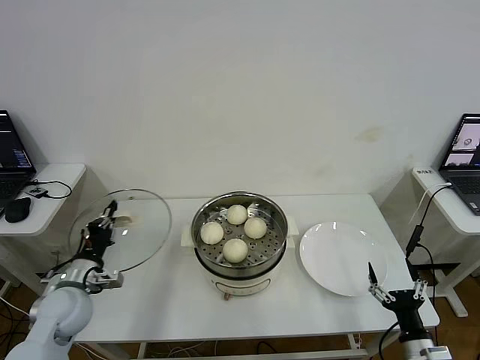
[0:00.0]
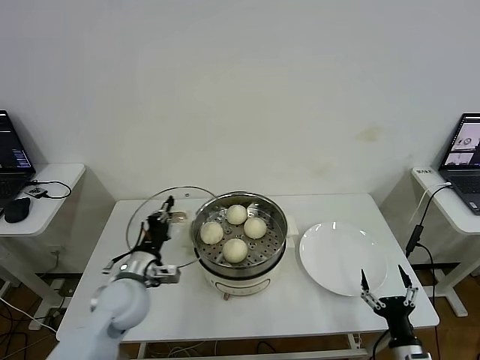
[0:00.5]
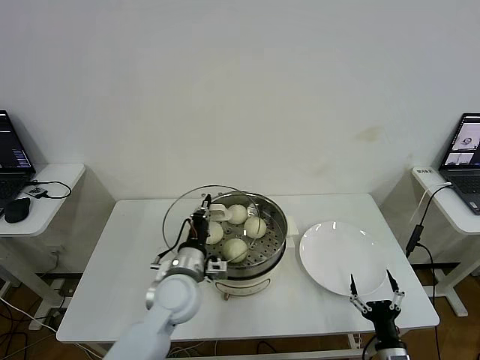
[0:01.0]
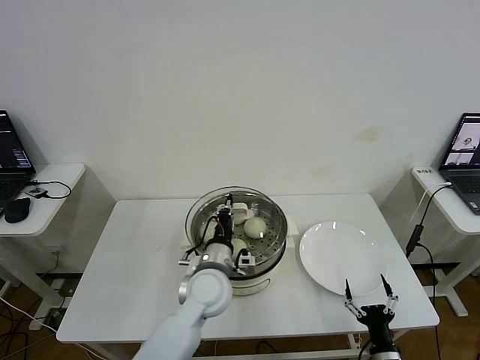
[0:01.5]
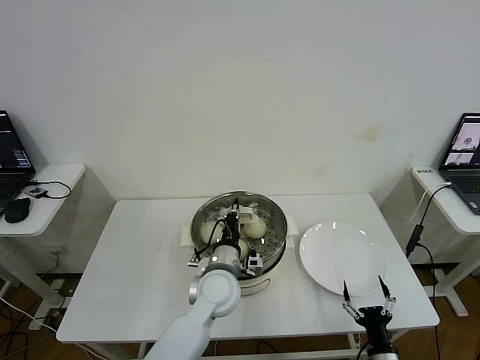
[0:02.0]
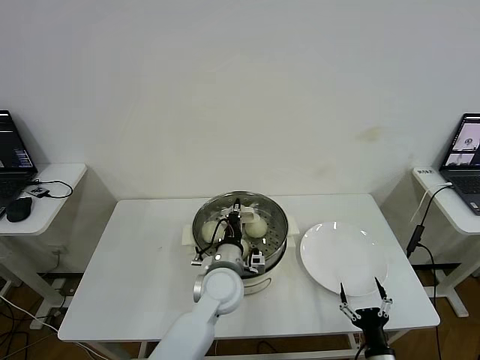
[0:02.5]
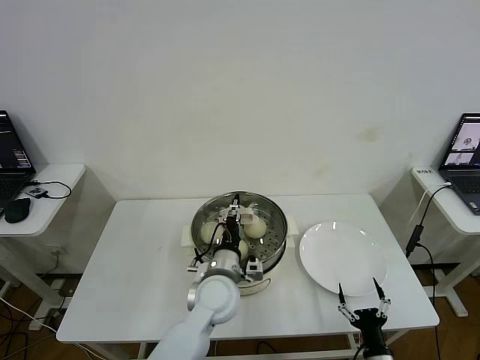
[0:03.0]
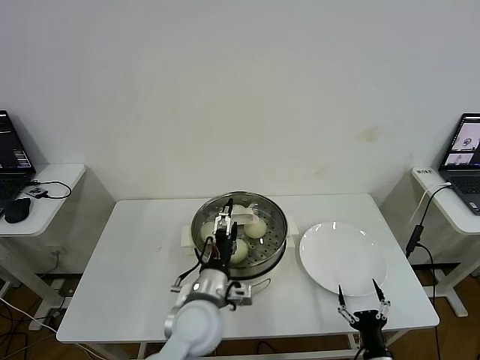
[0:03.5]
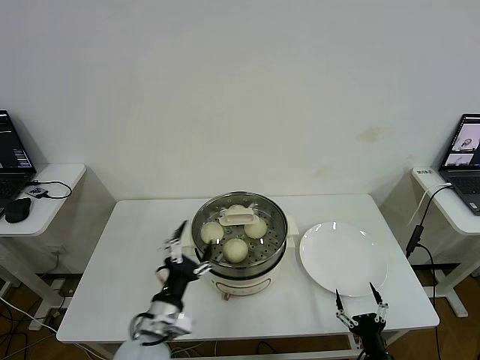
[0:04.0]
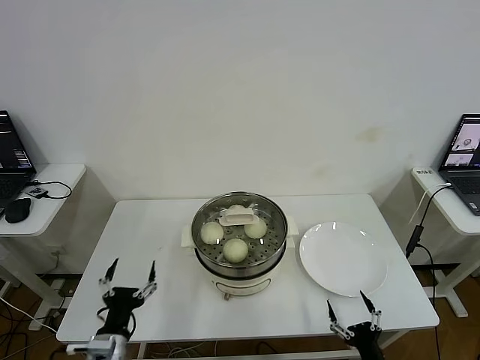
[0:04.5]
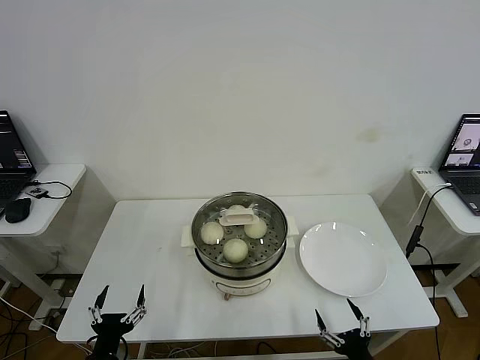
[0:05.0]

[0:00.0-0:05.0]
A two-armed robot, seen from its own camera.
Step, 0.0 to 2.5 s: Place the pot lid on the steamer with left gripper.
0.0 to 2.5 s: The right gripper shifts some 10 cm downward and to the left. The left gripper goes about 35 cm to the right.
2.5 to 5.0 s: The right gripper ends up approximately 5 cm from where it was. Meanwhile the left gripper heads to the left and backward, covering roughly 35 cm, and opens up.

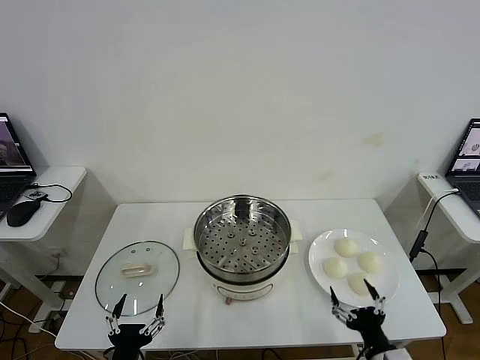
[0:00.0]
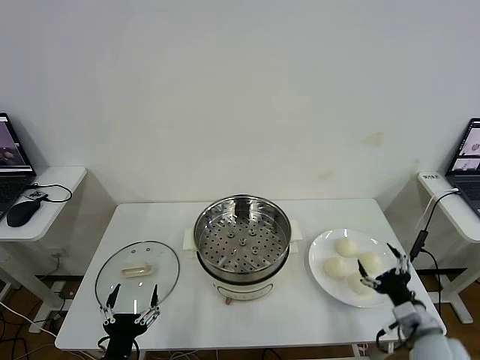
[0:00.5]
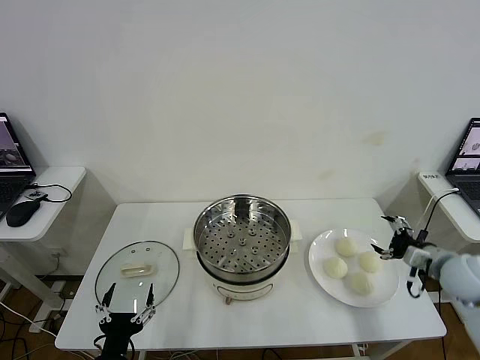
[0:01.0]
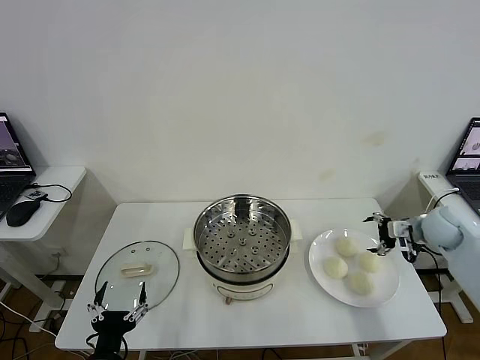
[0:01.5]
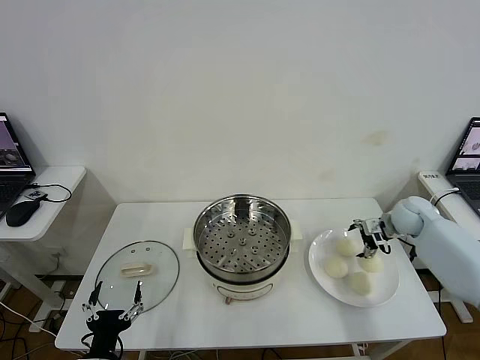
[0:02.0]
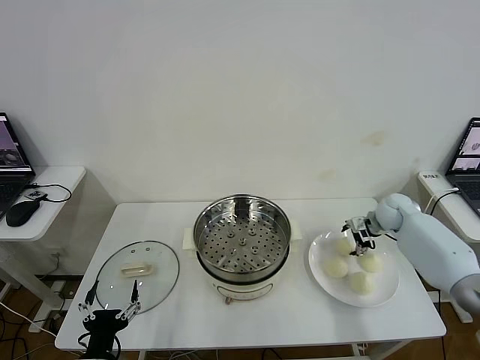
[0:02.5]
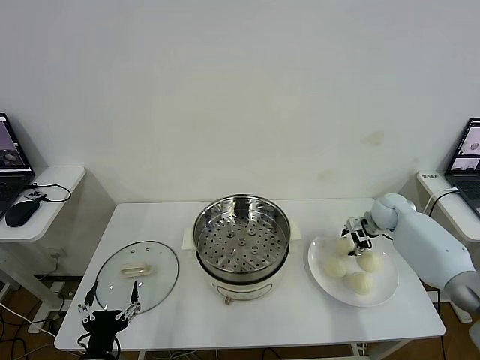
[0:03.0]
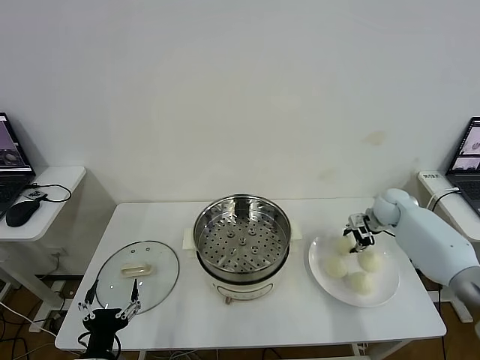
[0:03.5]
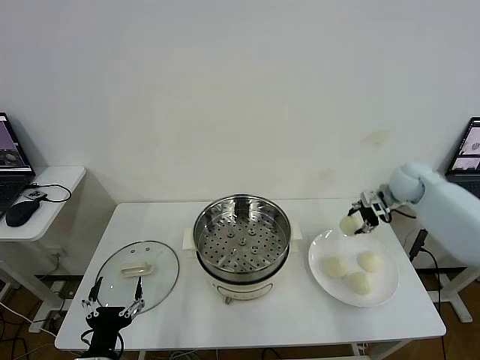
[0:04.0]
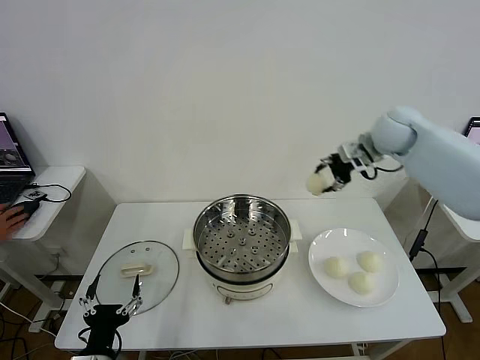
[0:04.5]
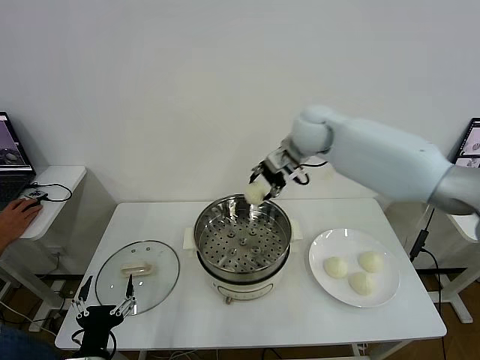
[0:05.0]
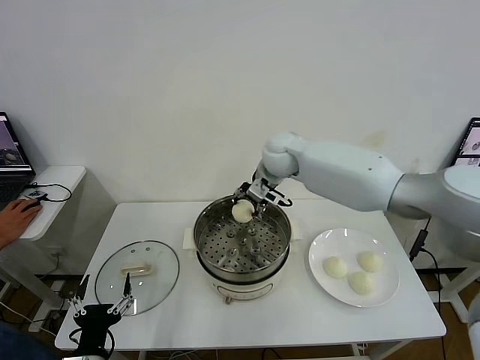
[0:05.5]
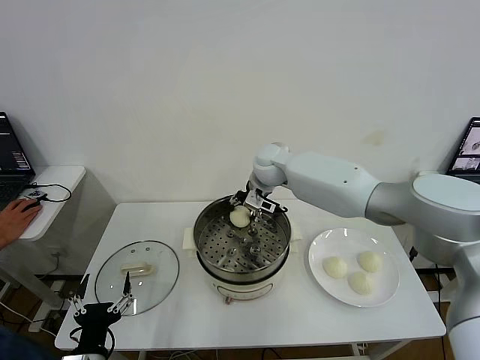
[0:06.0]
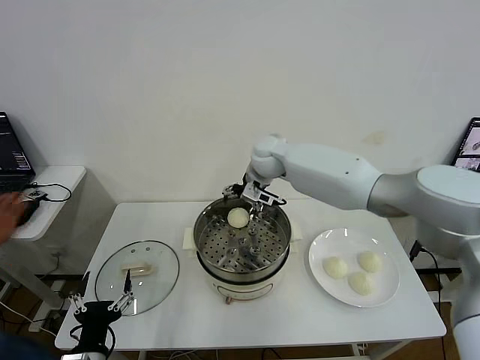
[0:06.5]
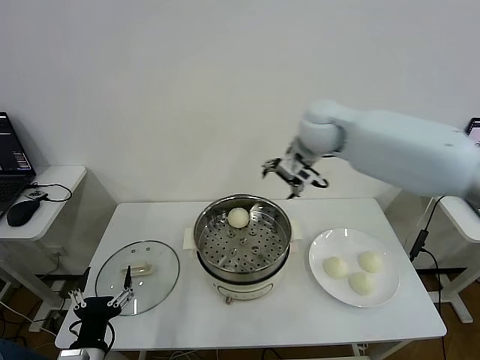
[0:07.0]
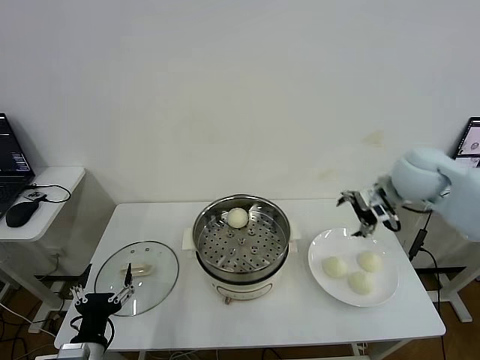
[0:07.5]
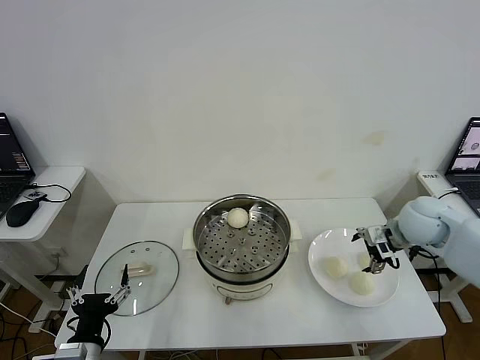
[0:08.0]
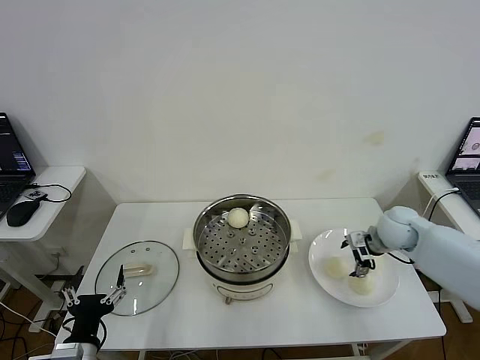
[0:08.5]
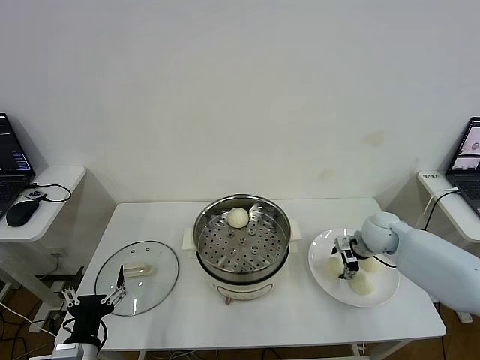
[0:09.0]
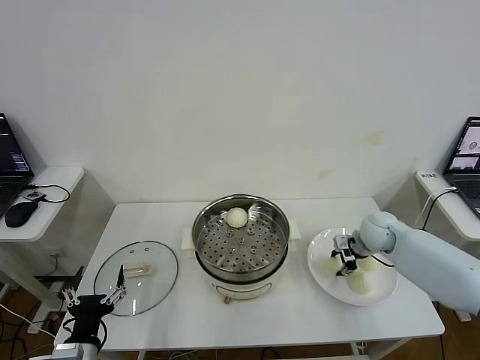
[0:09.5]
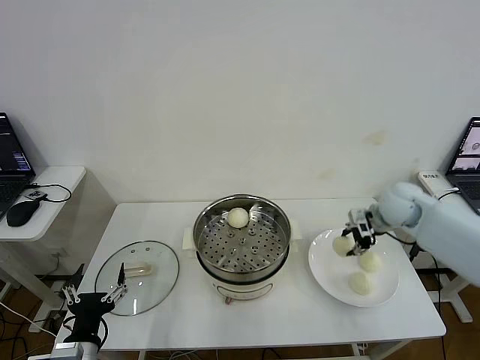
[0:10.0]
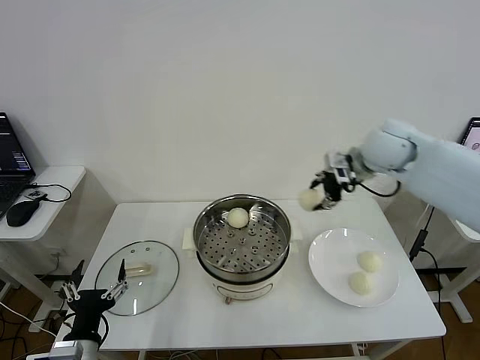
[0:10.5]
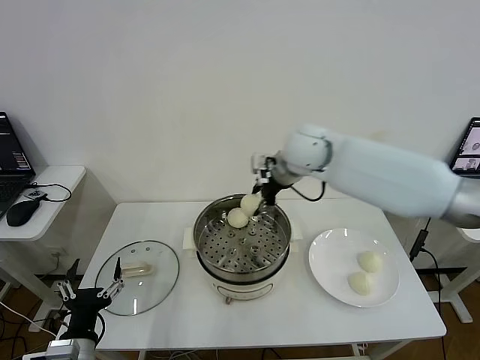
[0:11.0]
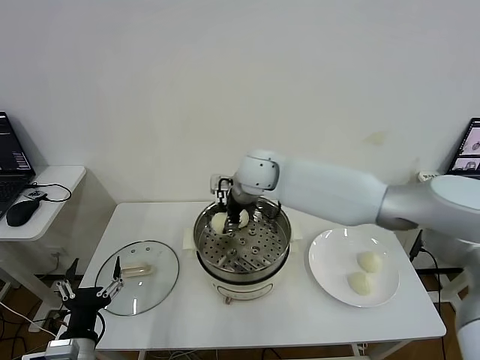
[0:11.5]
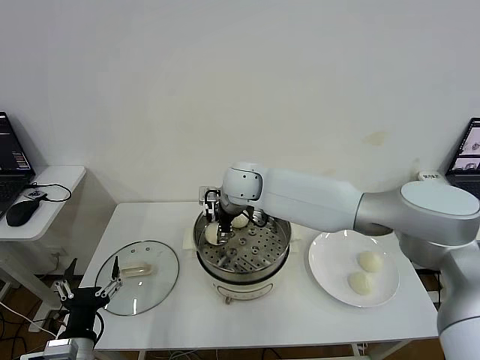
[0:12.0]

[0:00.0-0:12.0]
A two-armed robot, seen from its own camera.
Step, 0.0 to 3.0 s: Grasp the baozi in the plate with right gripper.
Step, 3.5 to 6.0 s: Place the baozi on the steamer with right gripper.
Step, 6.5 to 9.0 s: Grasp the baozi in the plate with right gripper.
2.0 to 4.0 s: The right gripper travels upward by roughly 15 cm, and closes up.
4.0 to 6.0 s: The right gripper shifts about 35 cm to the left.
6.0 to 8.0 s: The right gripper travels to the right and backward by approximately 35 cm, and opens up.
8.0 to 10.0 s: The right gripper travels forward by some 5 cm, travels downward and back again, approximately 10 cm each way, and closes up.
10.0 to 12.0 s: The right gripper is displaced to the left by some 35 cm, and opens up.

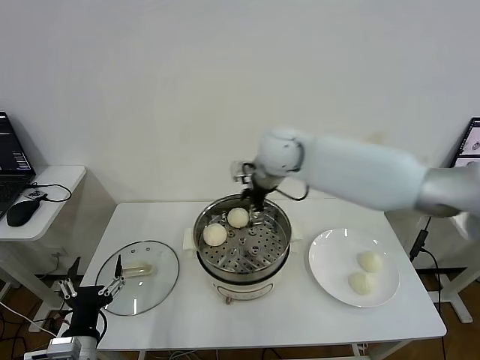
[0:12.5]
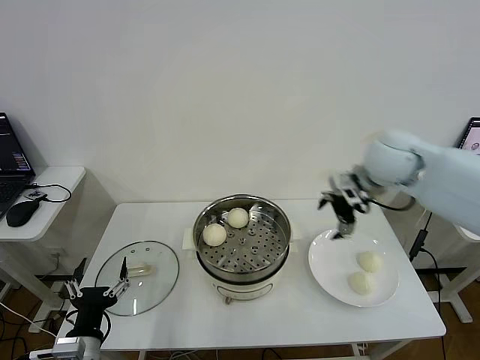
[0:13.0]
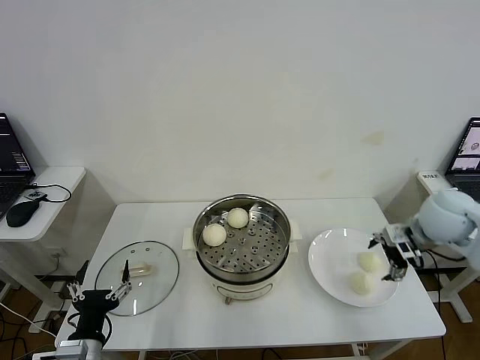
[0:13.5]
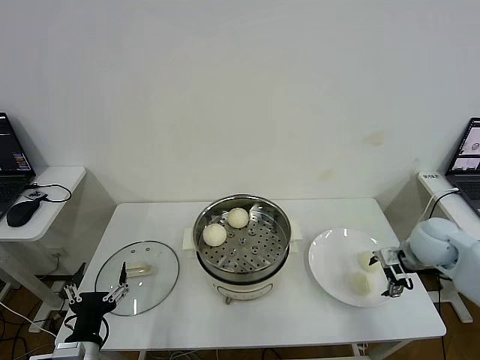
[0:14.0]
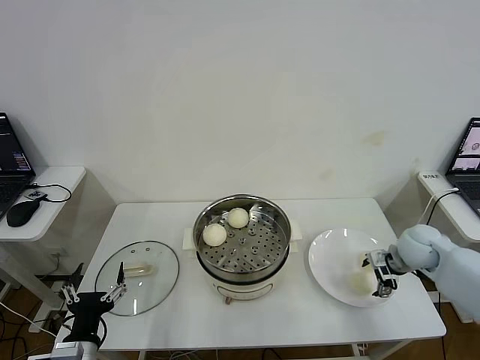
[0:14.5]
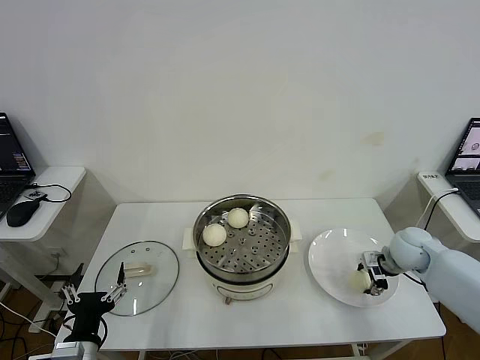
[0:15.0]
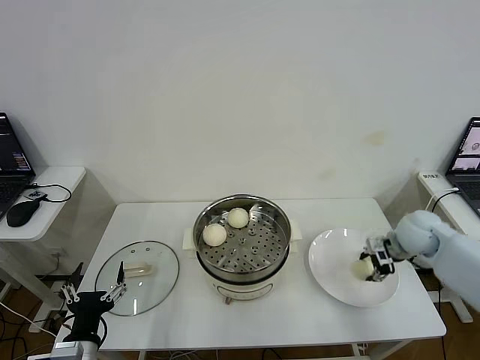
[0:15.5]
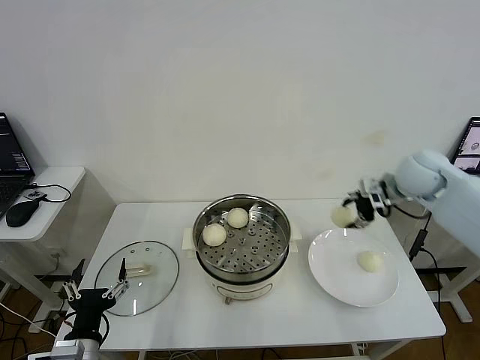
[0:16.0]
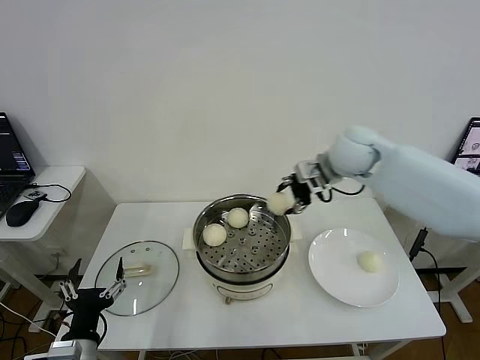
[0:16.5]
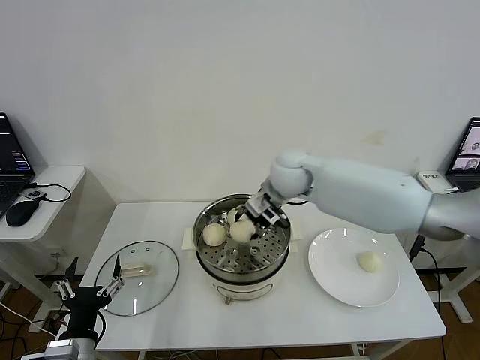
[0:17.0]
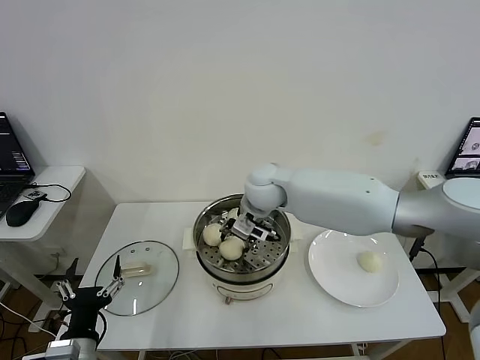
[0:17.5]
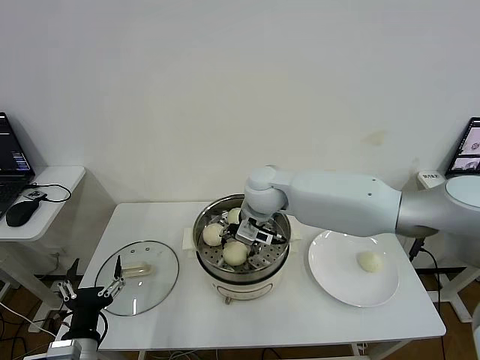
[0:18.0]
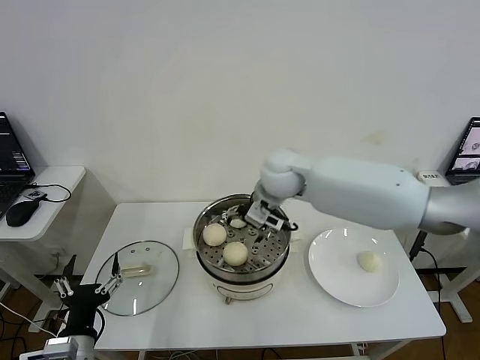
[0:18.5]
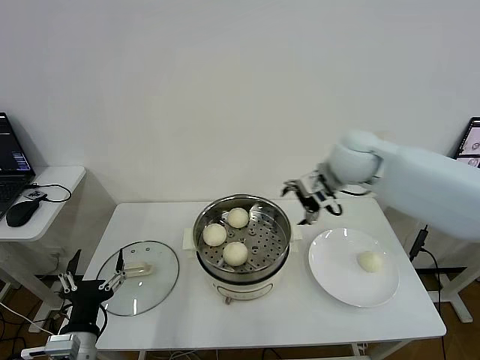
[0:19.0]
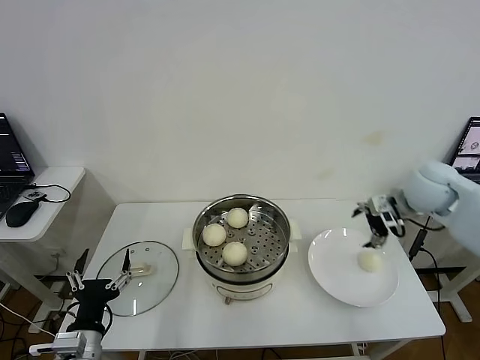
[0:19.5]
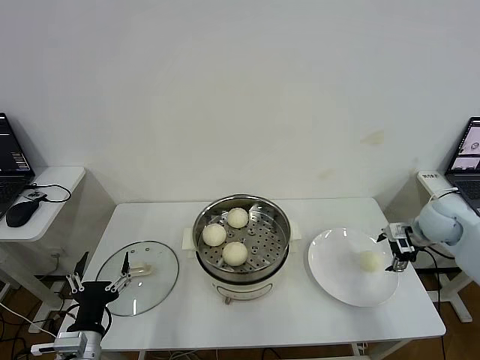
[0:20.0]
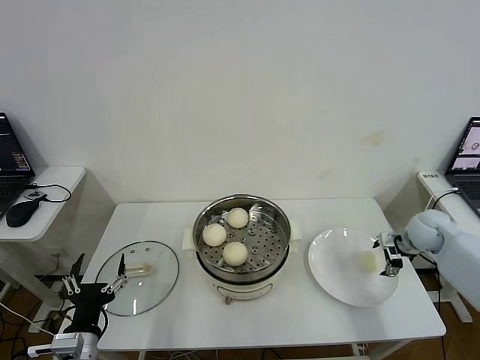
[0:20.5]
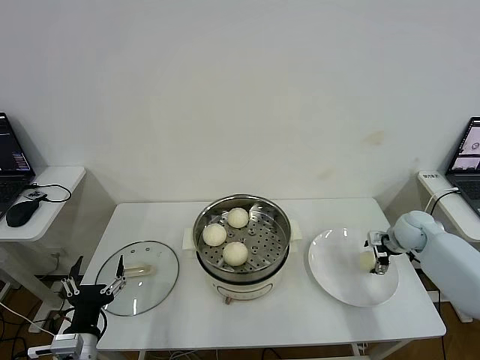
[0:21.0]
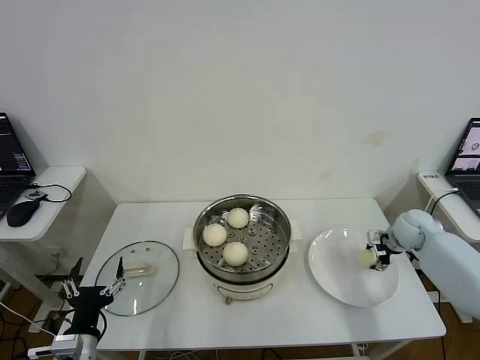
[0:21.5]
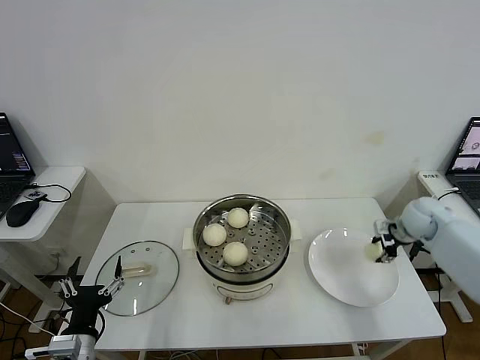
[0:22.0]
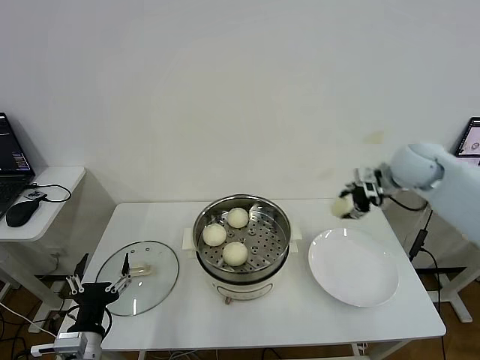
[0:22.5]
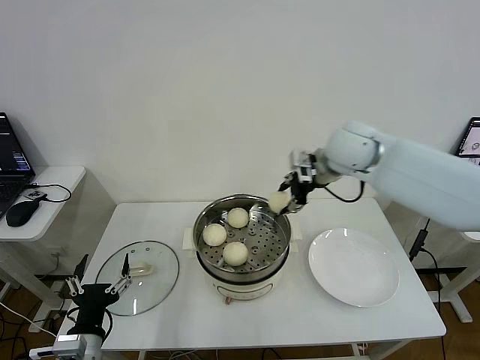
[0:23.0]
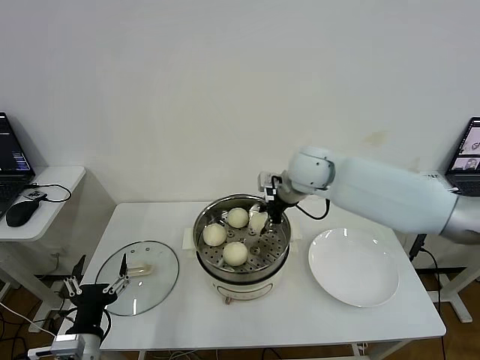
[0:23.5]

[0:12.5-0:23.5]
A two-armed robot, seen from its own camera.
Step, 12.5 to 15.0 s: Grasp the baozi in the plate with right gripper.
Step, 15.5 to 18.0 s: Place the baozi on the steamer with right gripper.
Step, 18.5 to 21.0 s: Grasp the baozi in the plate with right gripper.
12.5 to 14.5 s: The right gripper moves to the right and downward, about 35 cm.
14.5 to 16.0 s: The right gripper travels upward by approximately 20 cm, and closes.
16.0 to 18.0 s: The right gripper travels to the left by about 30 cm, and opens its fingers.
18.0 to 20.0 s: The right gripper goes approximately 40 cm to the right.
20.0 to 21.5 s: The right gripper shifts roughly 10 cm downward, and closes its fingers.
21.5 to 23.5 s: The right gripper travels to the left and upward by some 35 cm.
